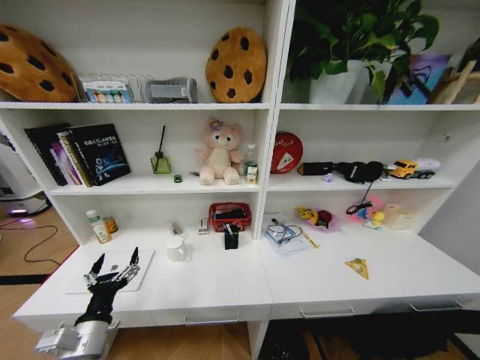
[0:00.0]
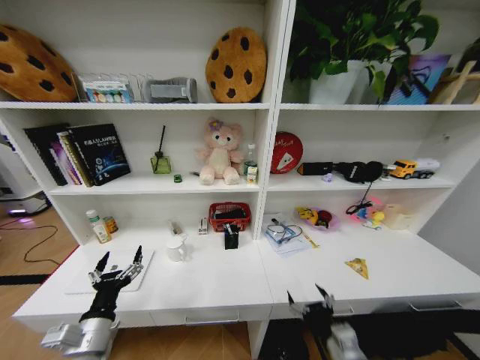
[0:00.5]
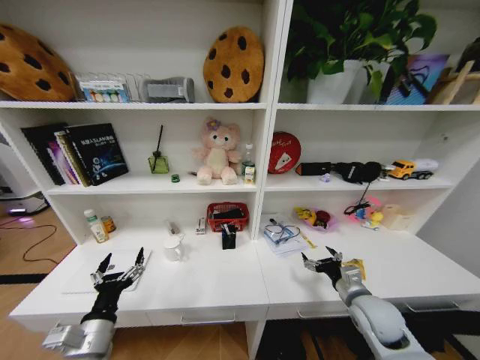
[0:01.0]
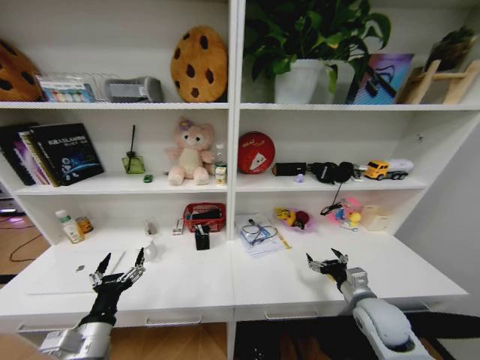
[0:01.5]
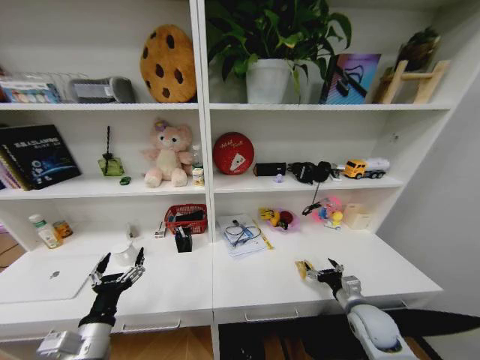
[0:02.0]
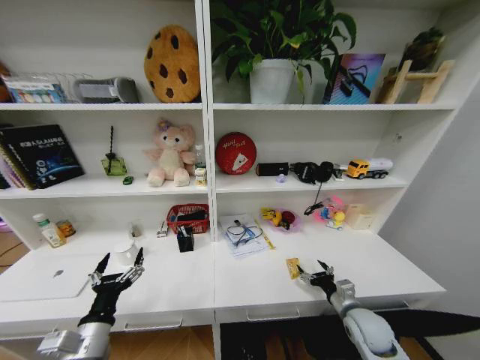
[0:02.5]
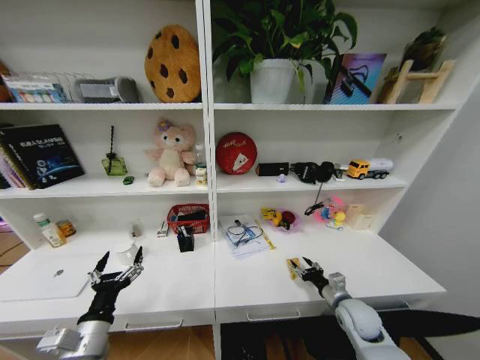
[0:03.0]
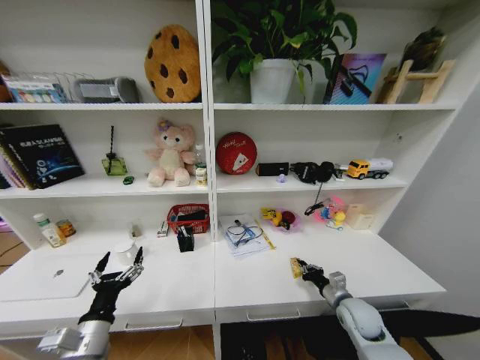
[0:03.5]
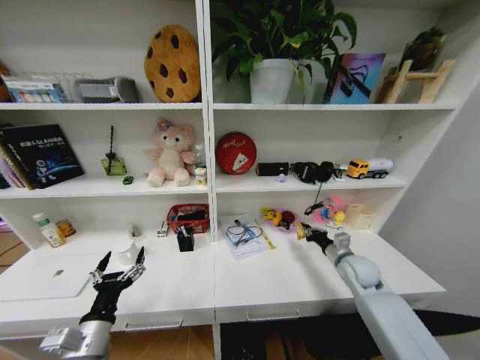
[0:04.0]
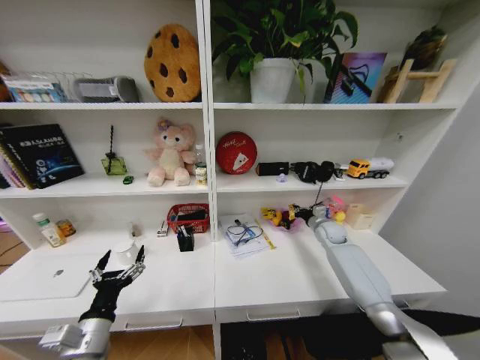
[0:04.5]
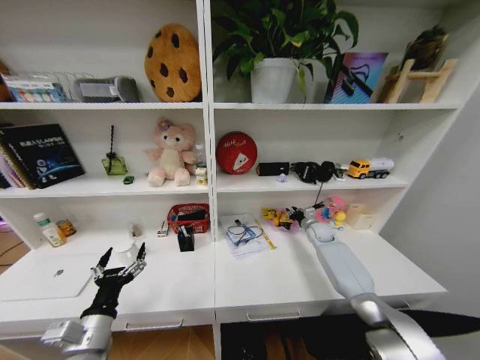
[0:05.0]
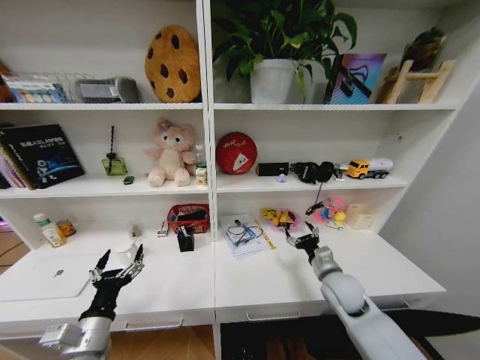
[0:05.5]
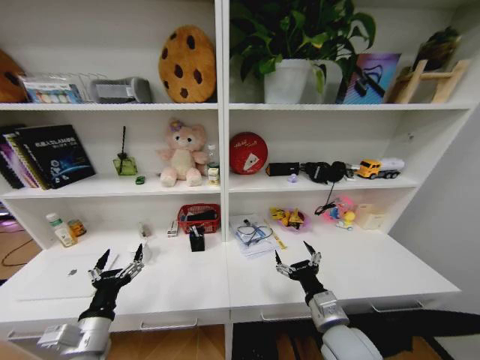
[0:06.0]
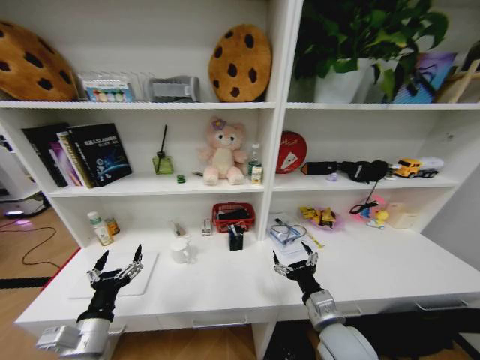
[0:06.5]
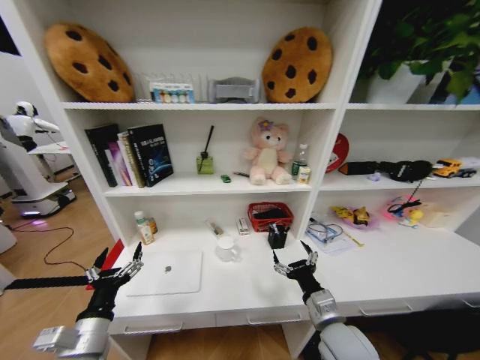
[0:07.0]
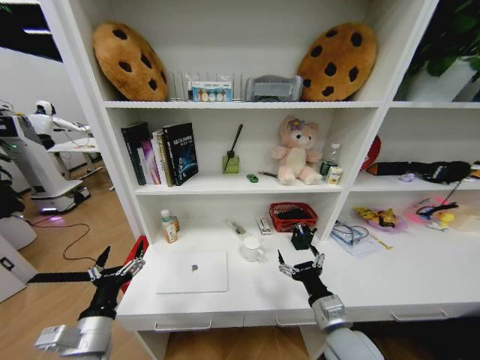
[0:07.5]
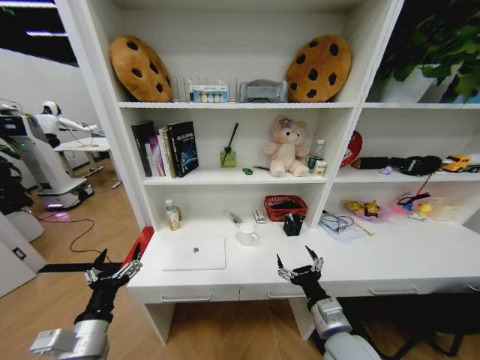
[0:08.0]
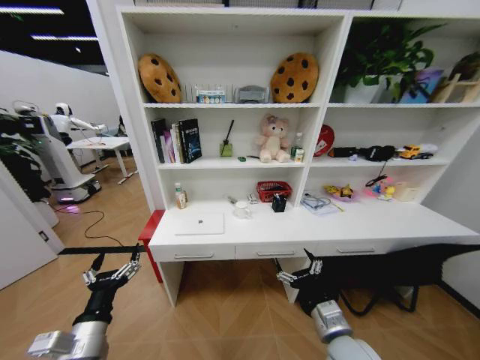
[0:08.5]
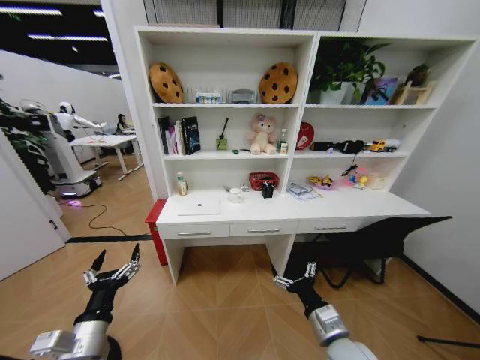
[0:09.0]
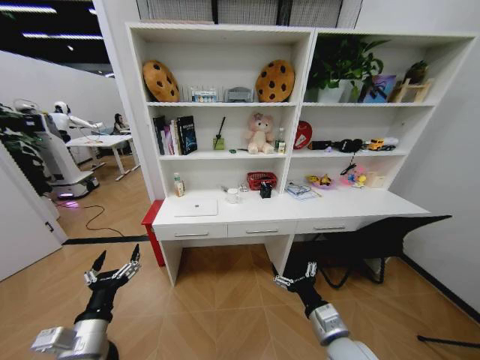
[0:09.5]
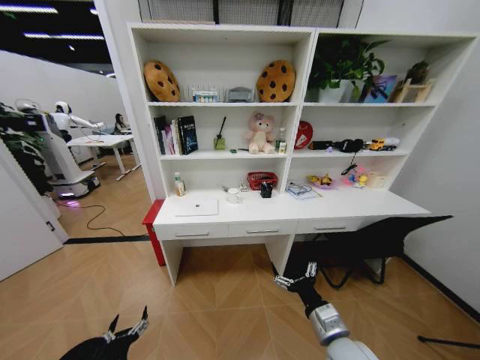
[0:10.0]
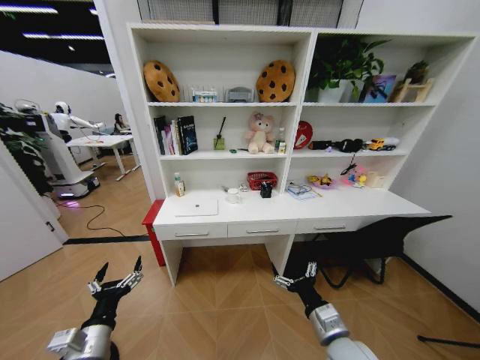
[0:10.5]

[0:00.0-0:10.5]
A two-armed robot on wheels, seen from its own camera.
Task of the whole recording: Organize the objects on the table.
0:00.0 to 0:02.0: The right gripper goes about 30 cm forward and upward.
0:02.0 to 0:04.0: The right gripper is displaced forward and upward by approximately 15 cm, and closes.
0:04.0 to 0:06.5: The right gripper moves backward and to the left, roughly 25 cm, and opens.
0:08.5 to 0:10.5: The left gripper travels downward and back again, approximately 20 cm each way.

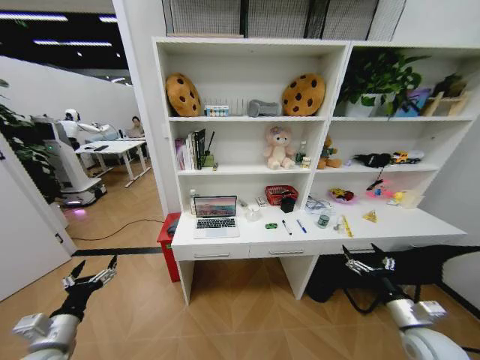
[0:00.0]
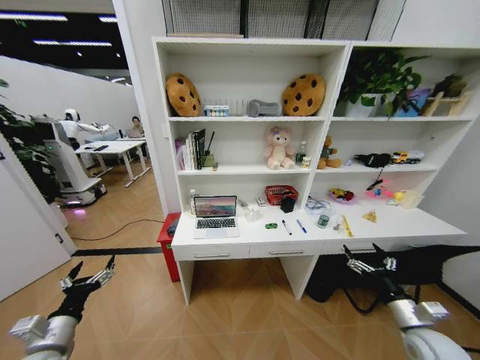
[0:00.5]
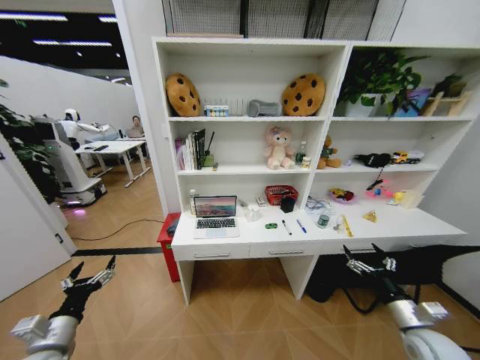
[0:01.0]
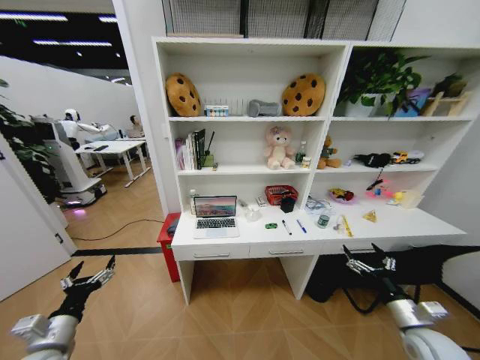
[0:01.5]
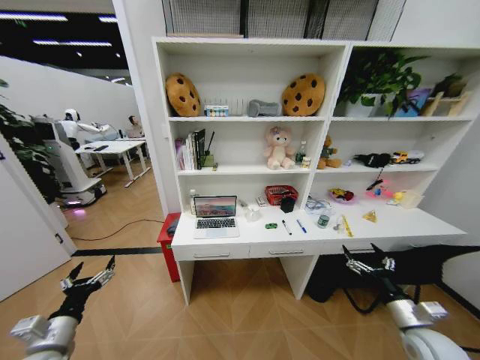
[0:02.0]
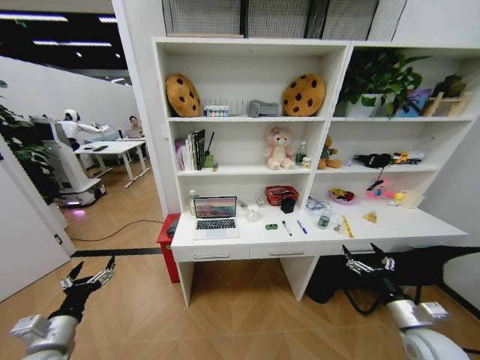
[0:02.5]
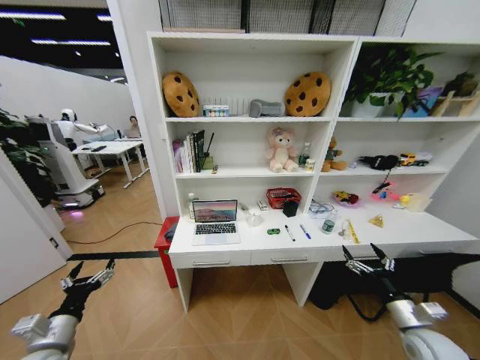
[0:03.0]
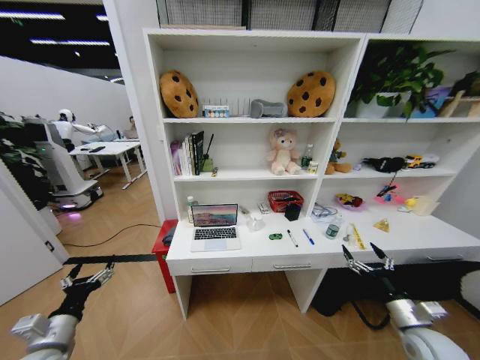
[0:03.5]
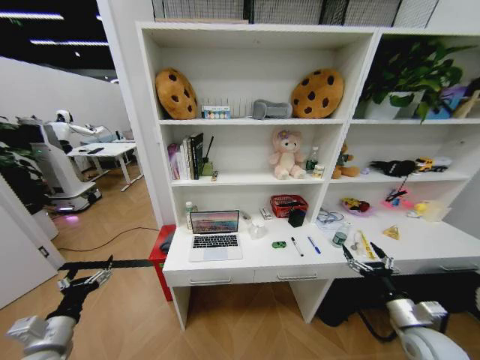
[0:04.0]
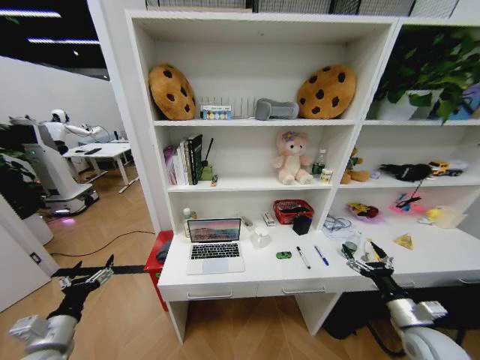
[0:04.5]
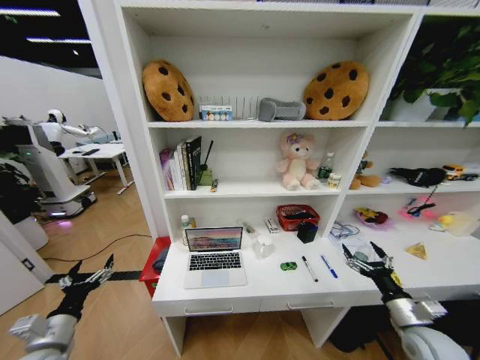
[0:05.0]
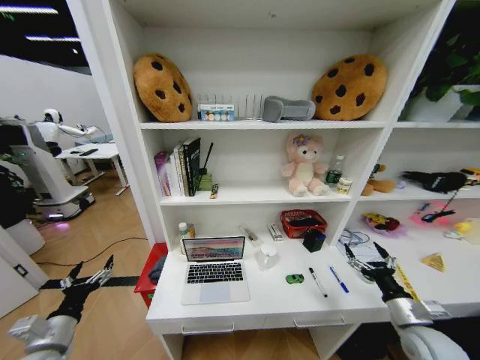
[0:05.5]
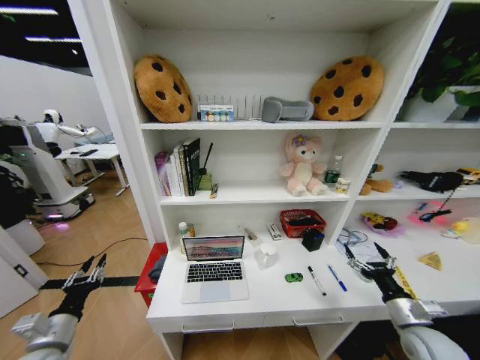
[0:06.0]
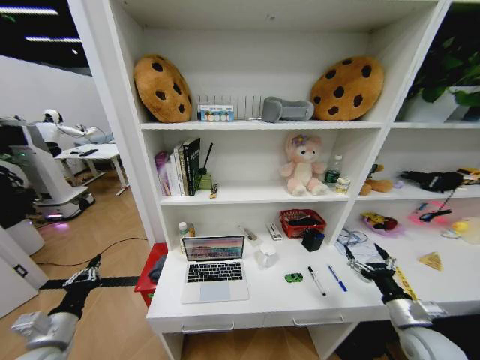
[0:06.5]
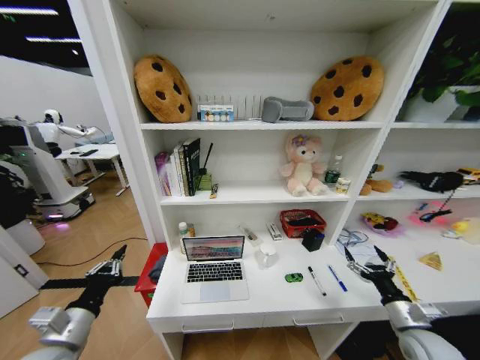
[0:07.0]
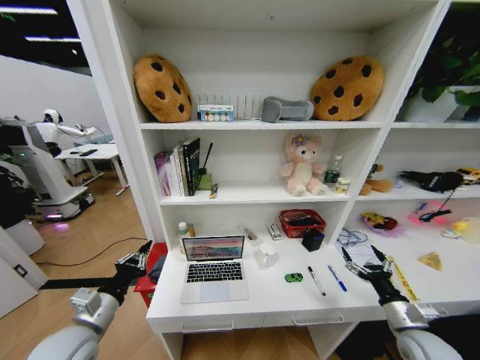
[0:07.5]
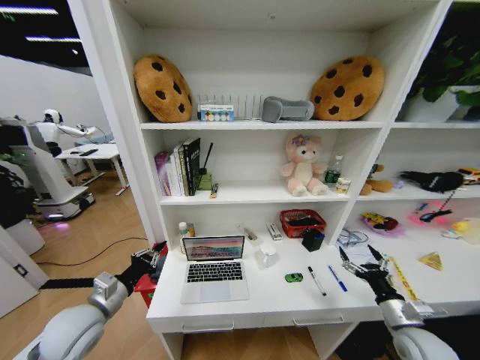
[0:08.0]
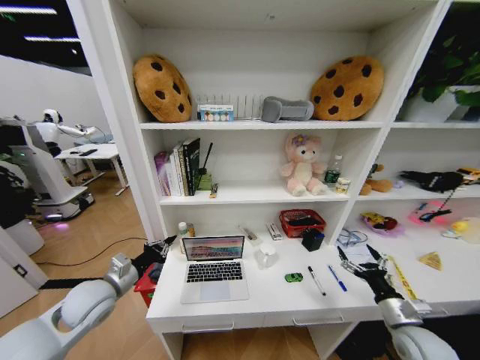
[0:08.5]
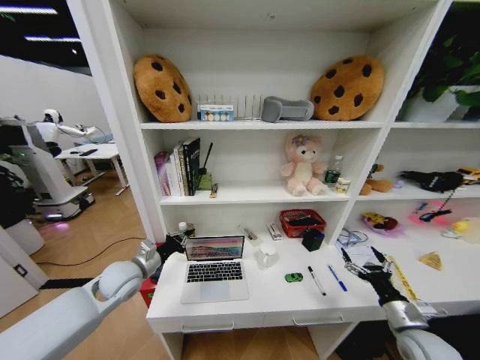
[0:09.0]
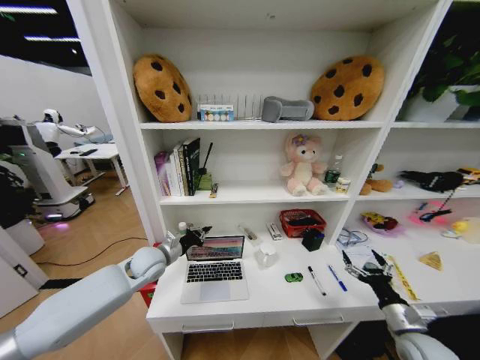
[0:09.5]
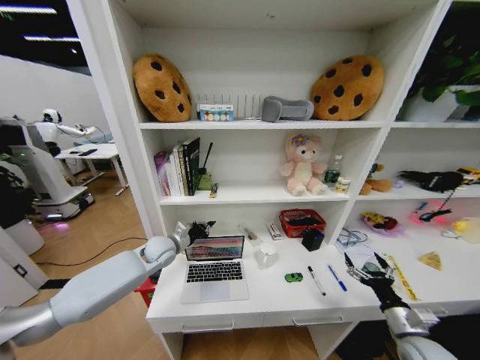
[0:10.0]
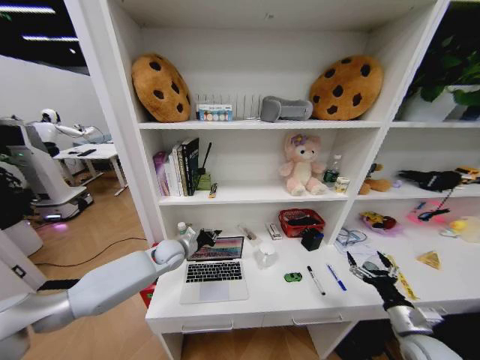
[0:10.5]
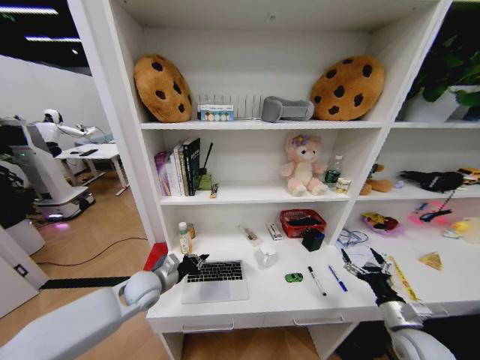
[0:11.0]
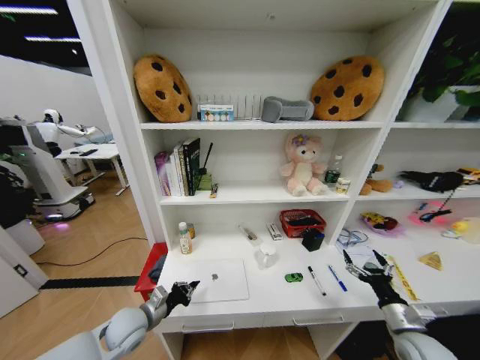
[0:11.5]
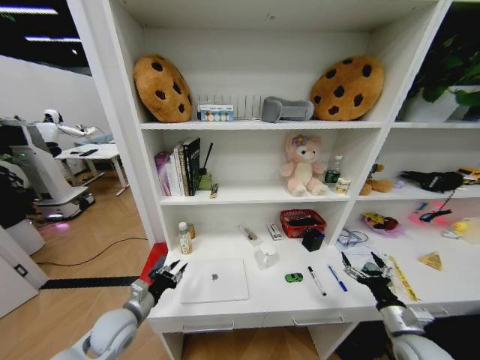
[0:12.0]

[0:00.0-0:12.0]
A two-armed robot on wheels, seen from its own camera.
Task of the whole recording: Organize the objects on the table.
0:04.0 to 0:06.0: The left gripper closes.
0:06.0 to 0:08.0: The left gripper moves to the right, upward and forward, approximately 10 cm, and closes.
0:08.0 to 0:10.0: The left gripper moves forward and to the right, about 25 cm.
0:10.0 to 0:12.0: The left gripper is displaced backward by roughly 20 cm.

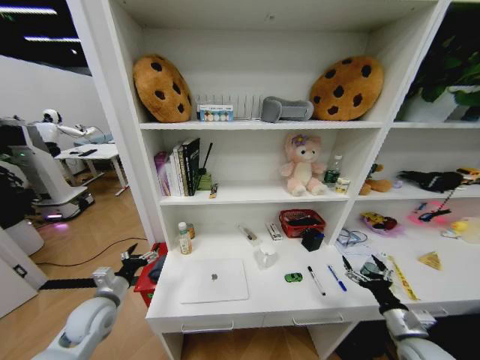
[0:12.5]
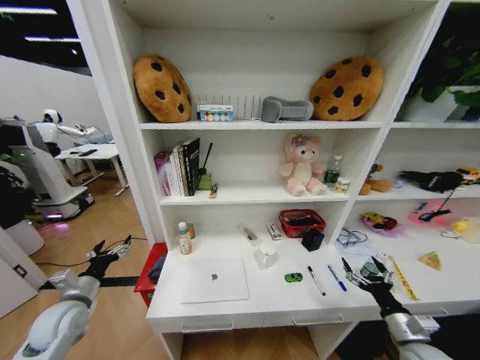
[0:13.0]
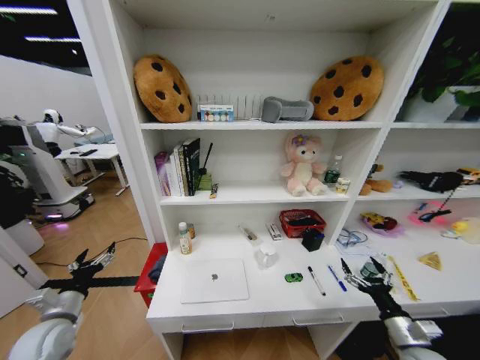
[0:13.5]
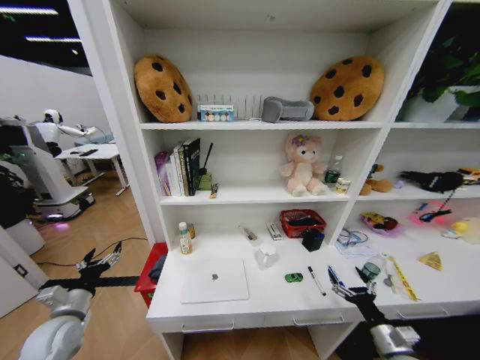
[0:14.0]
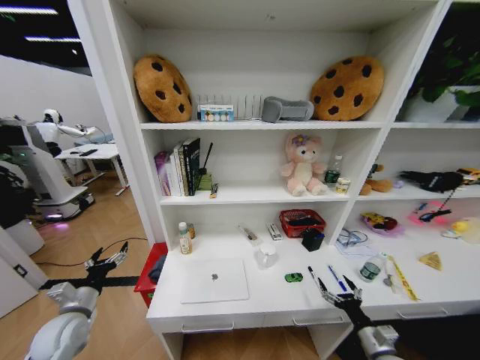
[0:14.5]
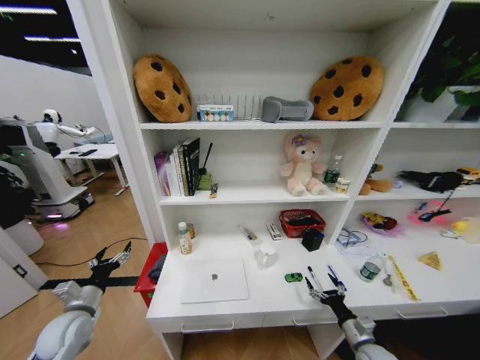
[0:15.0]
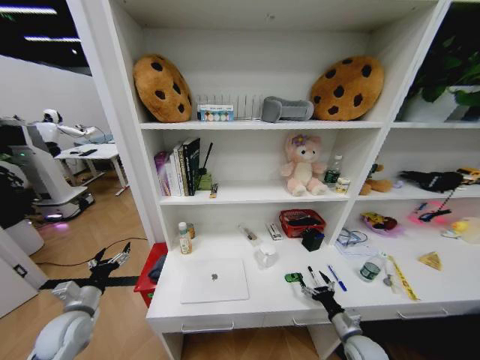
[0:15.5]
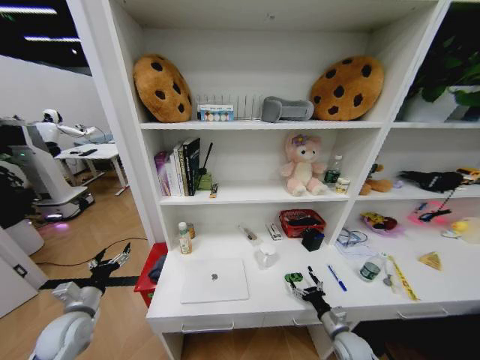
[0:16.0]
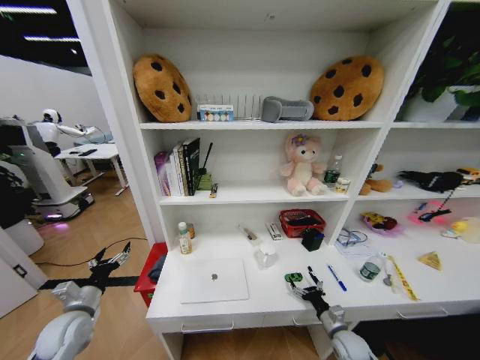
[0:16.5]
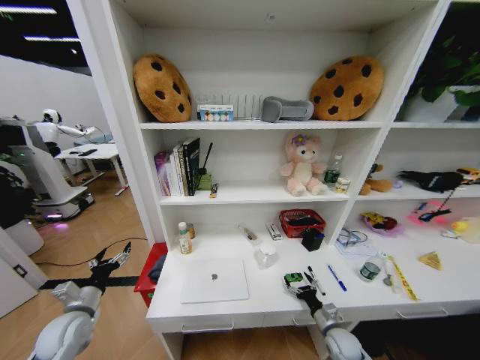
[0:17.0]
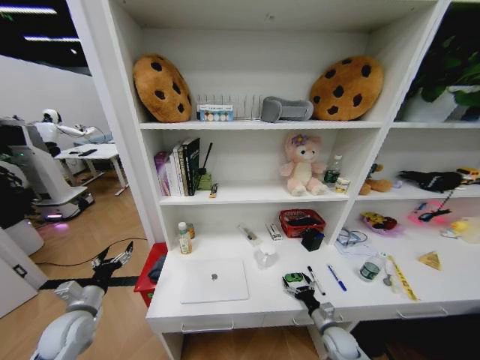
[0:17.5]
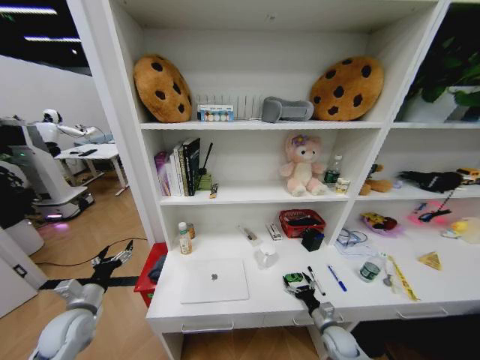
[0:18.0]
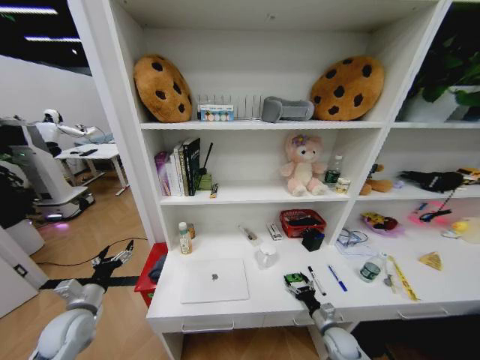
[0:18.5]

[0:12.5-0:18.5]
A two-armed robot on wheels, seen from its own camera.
Task of the whole recording: Organize the objects on the table.
0:12.5 to 0:14.5: The right gripper moves downward, some 5 cm, while the left gripper travels to the left by some 5 cm.
0:14.5 to 0:16.5: The right gripper is displaced forward and downward by about 10 cm.
0:16.5 to 0:18.5: The grippers stay close to where they were, moving slightly.
